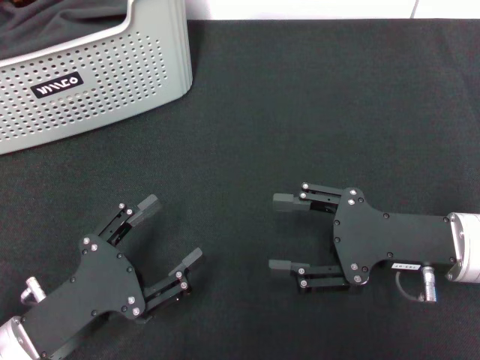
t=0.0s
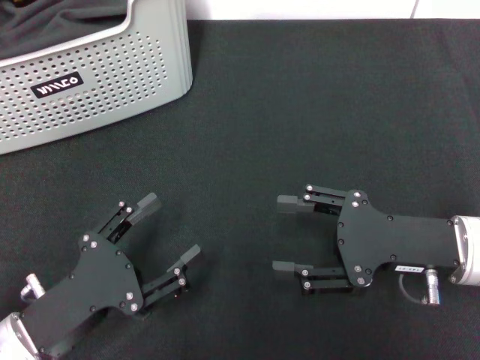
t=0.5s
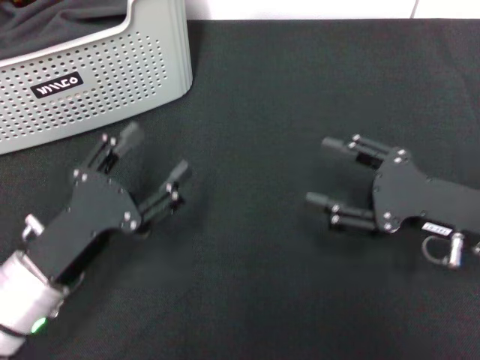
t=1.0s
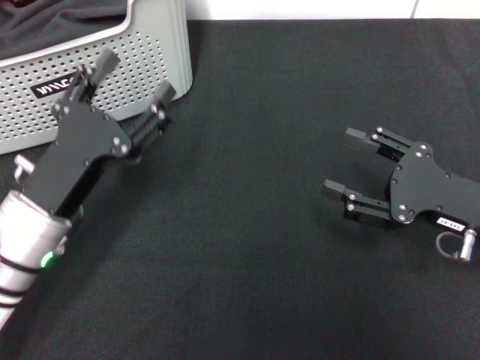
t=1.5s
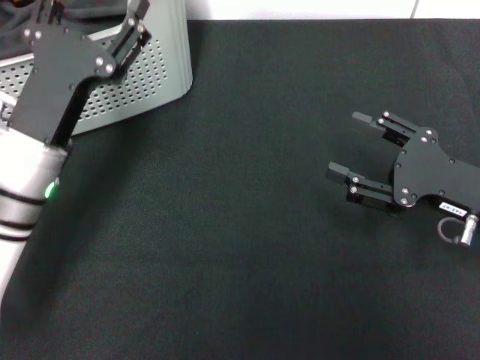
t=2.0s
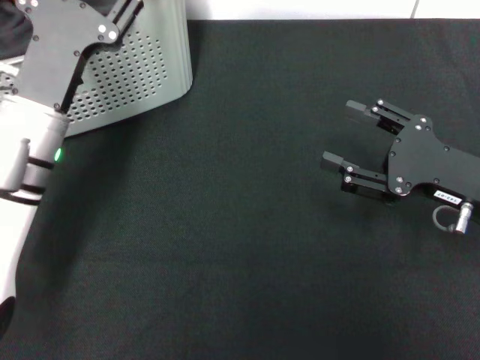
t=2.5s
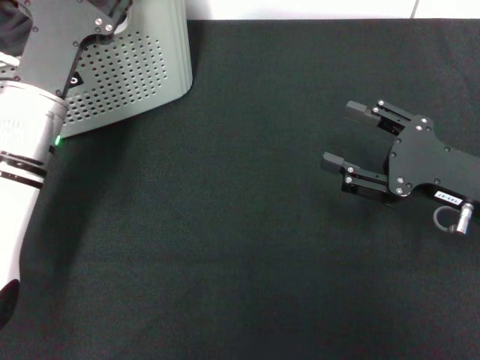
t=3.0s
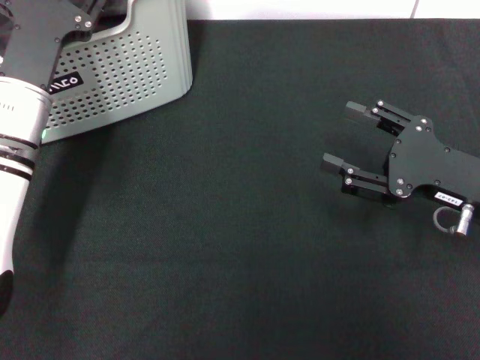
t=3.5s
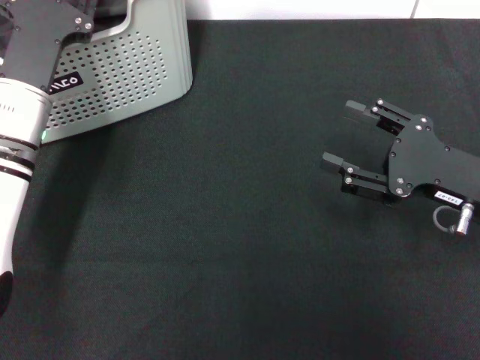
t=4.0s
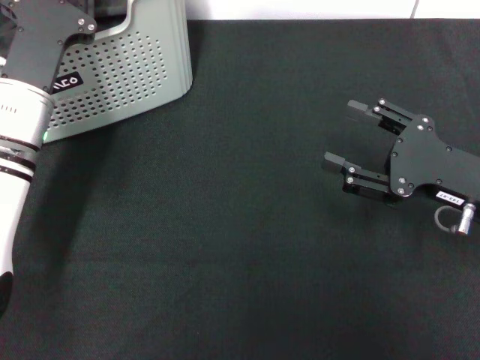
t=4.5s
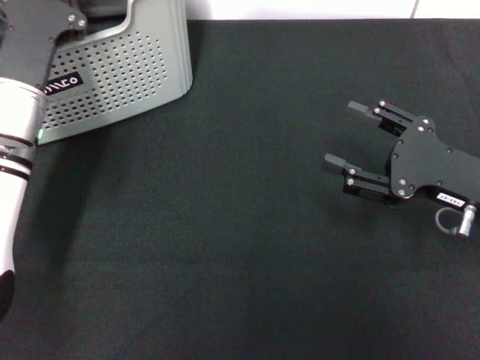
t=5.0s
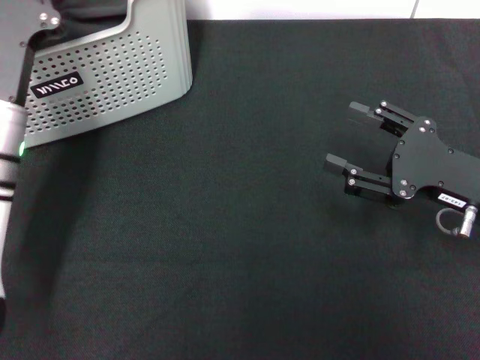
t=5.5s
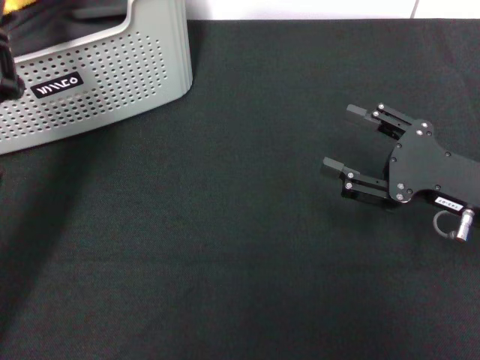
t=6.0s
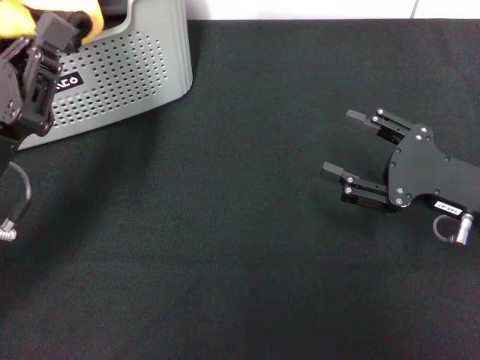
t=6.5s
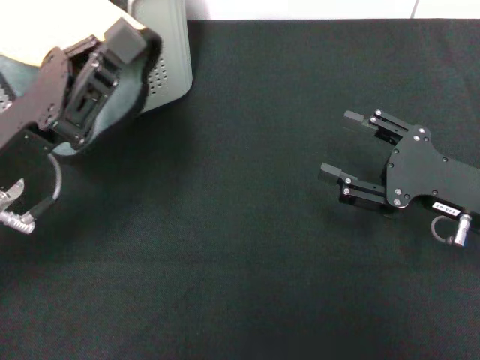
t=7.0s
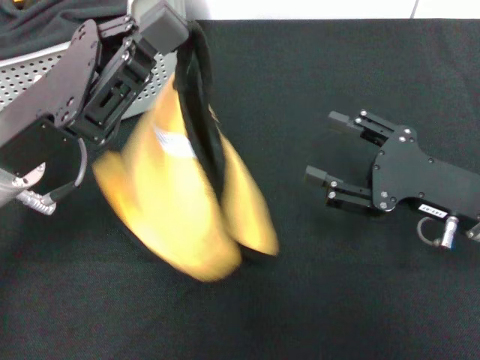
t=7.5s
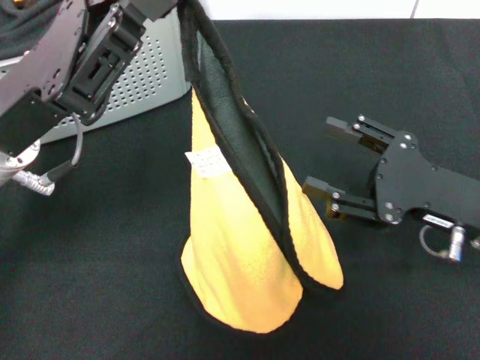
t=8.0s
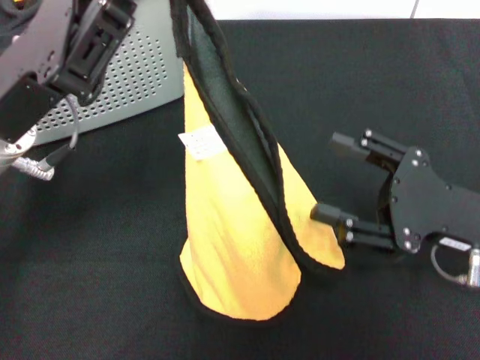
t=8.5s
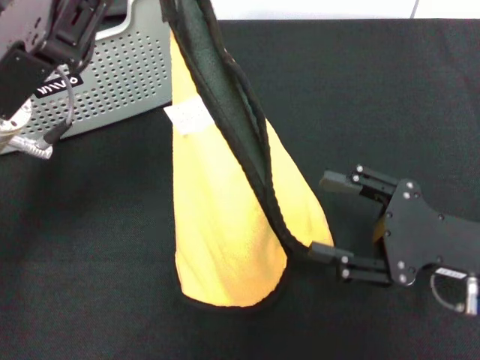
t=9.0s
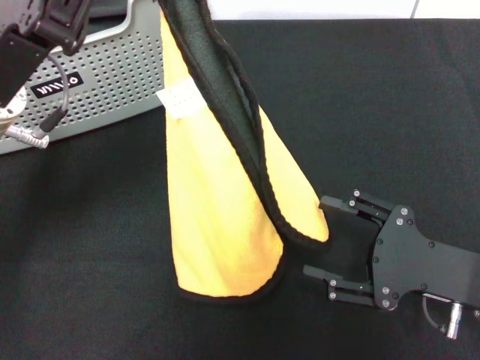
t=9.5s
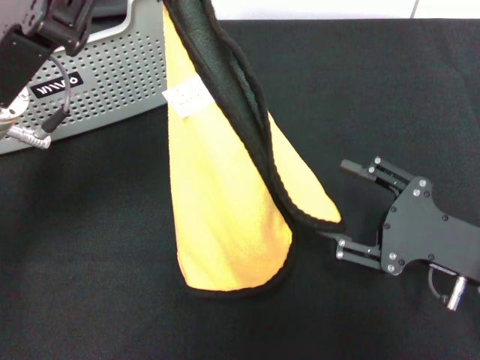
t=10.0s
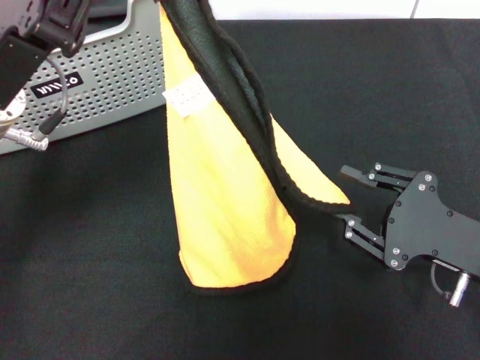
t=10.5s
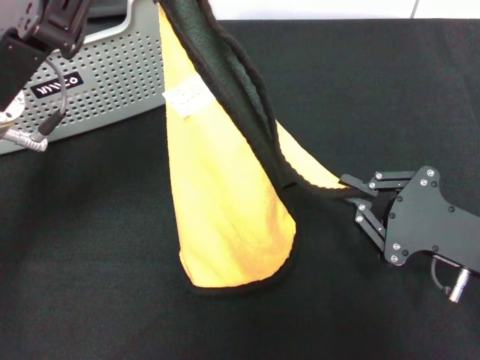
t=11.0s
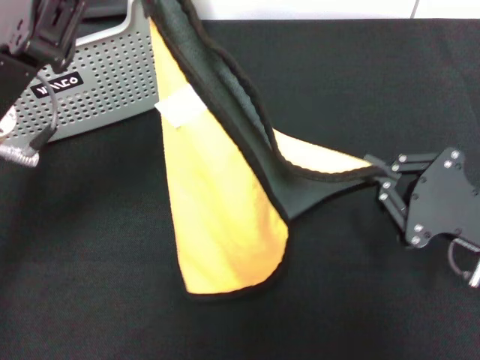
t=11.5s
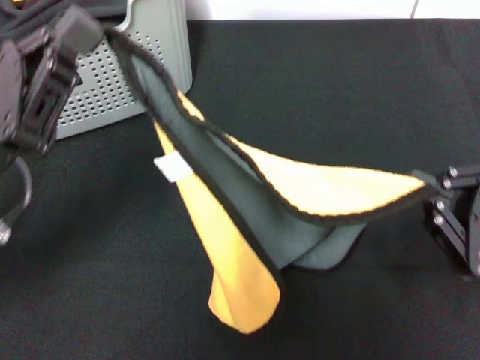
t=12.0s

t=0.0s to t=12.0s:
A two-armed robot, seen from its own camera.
Task of the whole recording: pick up the towel from the storage box and lay it flat on the black tablecloth.
Step, t=0.0s to t=5.0s: Pick up a towel with the left gripper.
Step, t=5.5s to t=11.0s: Spread the towel flat with the left gripper.
t=0.0s to t=2.0s: The left gripper is displaced forward and upward by some 15 cm.
t=2.0s to t=4.0s: The left gripper is displaced forward by approximately 5 cm.
t=4.0s to t=6.0s: The left gripper travels backward by approximately 10 cm, and closes its fingers.
t=6.0s to t=8.0s: The left gripper shifts roughly 5 cm upward.
t=10.0s to t=12.0s: The left gripper shifts some 5 cm backward. The right gripper moves some 5 cm, and closes up.

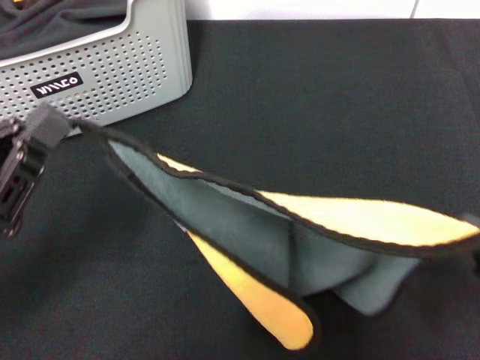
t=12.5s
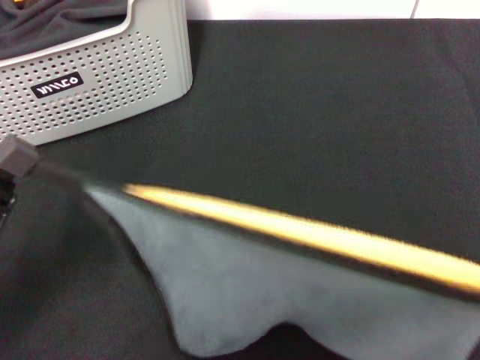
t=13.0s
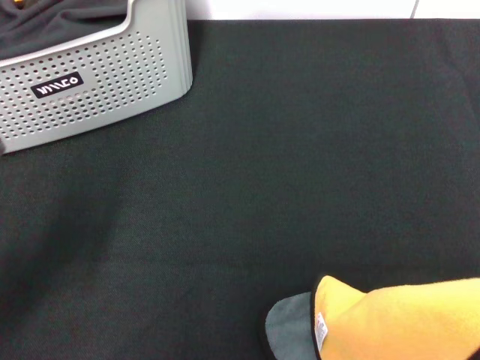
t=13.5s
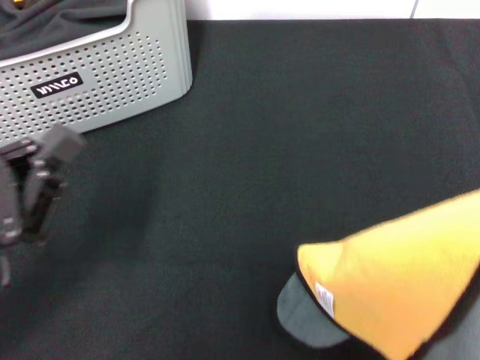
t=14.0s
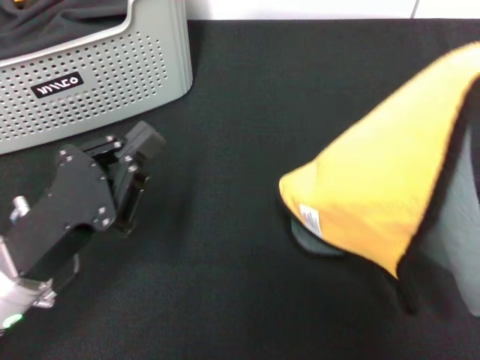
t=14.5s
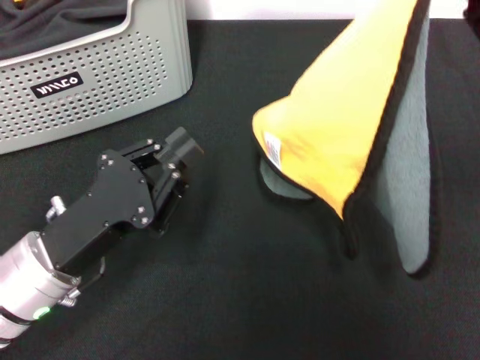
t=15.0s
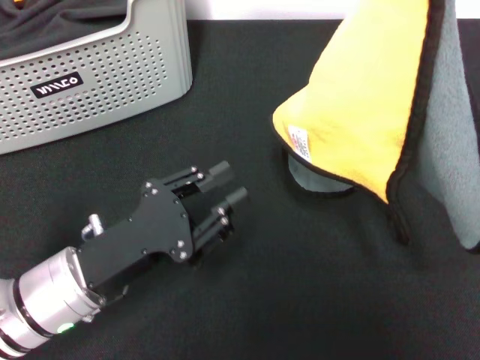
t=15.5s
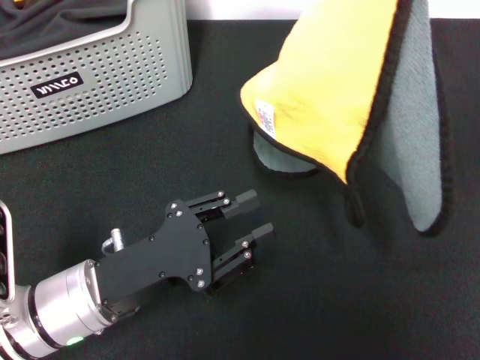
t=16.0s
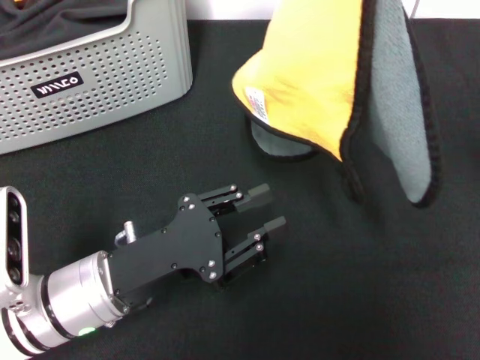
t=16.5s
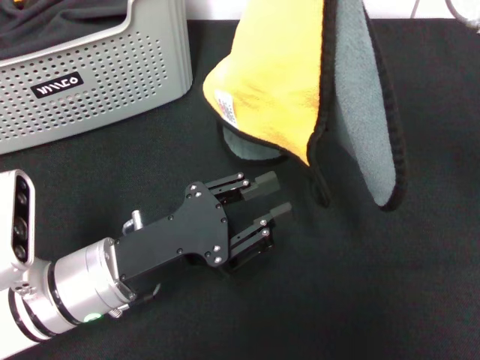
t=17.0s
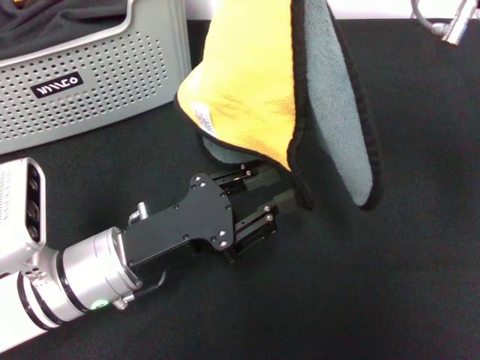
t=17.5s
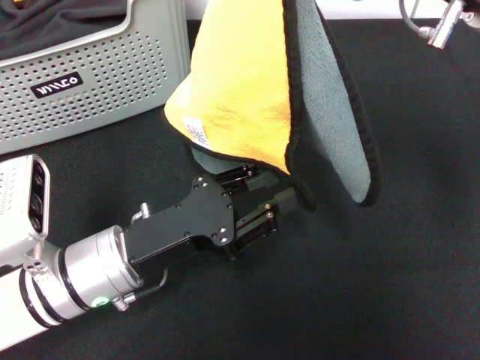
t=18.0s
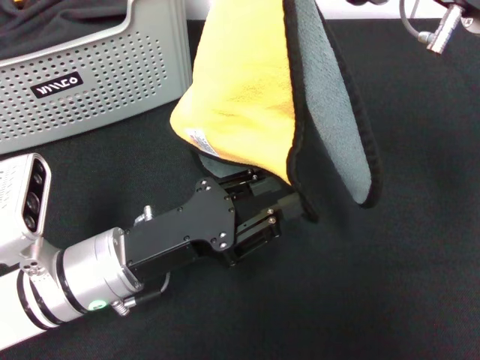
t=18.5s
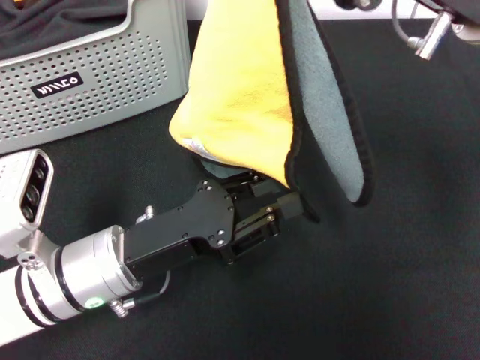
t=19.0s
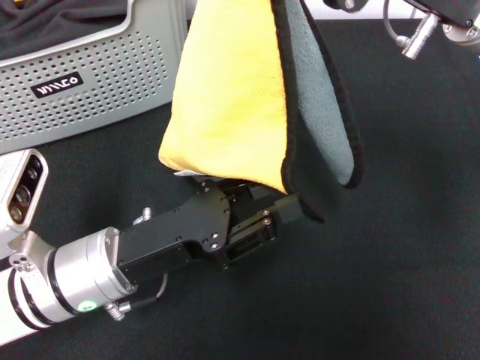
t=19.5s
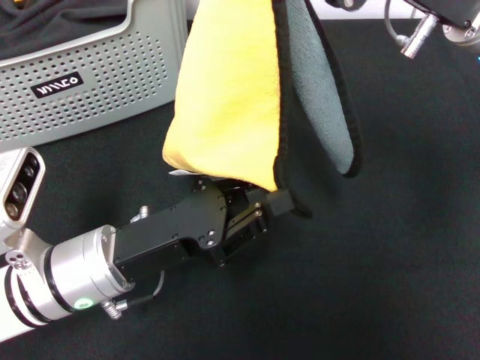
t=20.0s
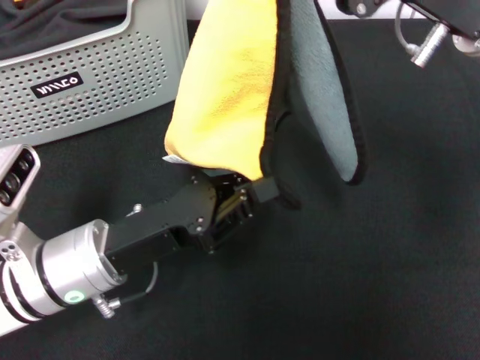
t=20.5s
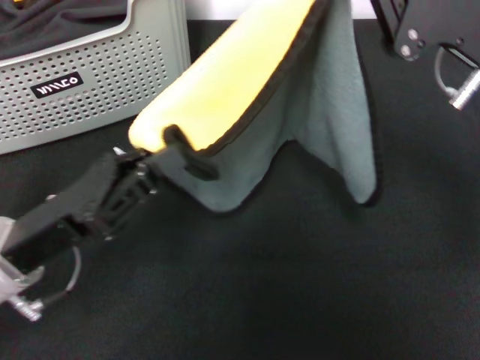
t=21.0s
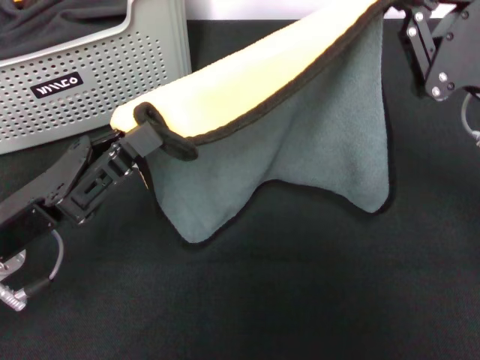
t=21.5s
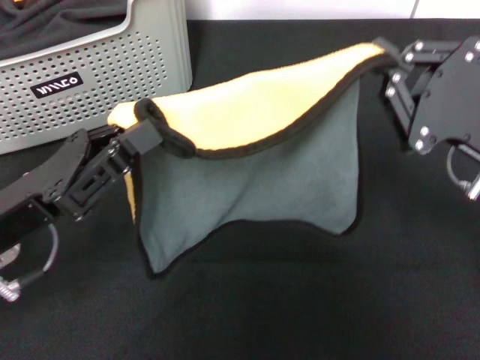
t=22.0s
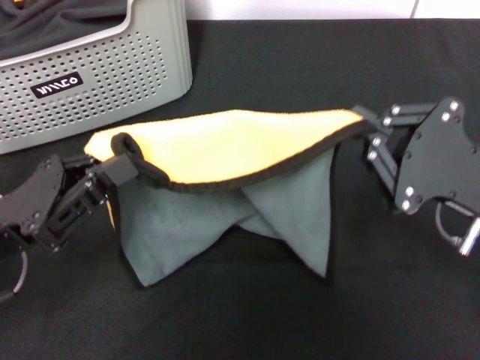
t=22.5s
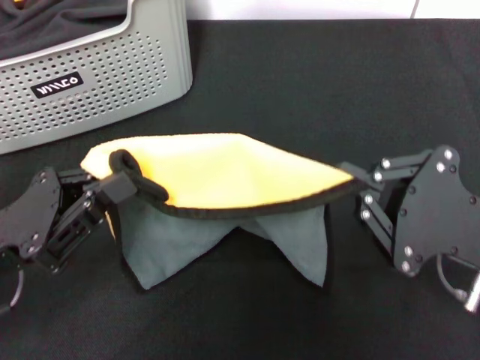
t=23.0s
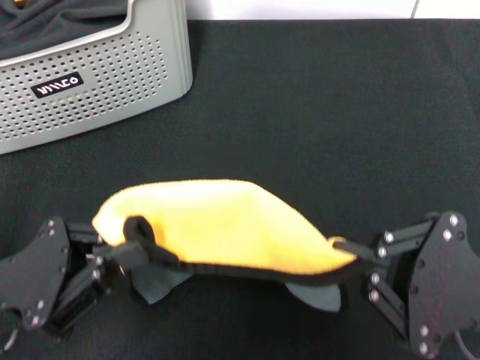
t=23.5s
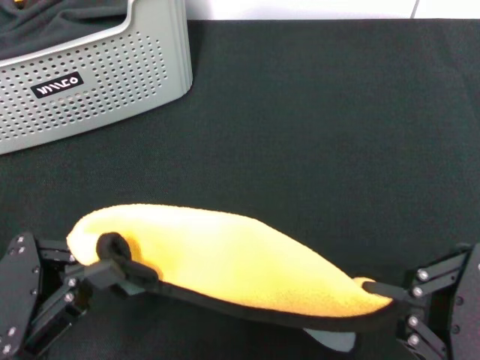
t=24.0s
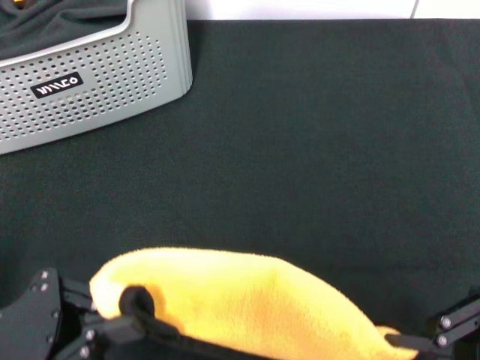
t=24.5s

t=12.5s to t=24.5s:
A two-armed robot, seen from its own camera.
Task of the whole recording: pick up the towel from the storage box and lay it flat on the black tablecloth.
t=12.5s to t=14.5s: The left gripper shifts roughly 5 cm to the right; the right gripper moves forward and upward, about 10 cm.
t=14.5s to t=16.5s: The right gripper is displaced forward, to the left and upward by some 10 cm. The left gripper moves approximately 5 cm, and opens.
t=18.5s to t=20.5s: The left gripper closes its fingers.
t=20.5s to t=22.5s: The right gripper is displaced downward, backward and to the right by some 15 cm. The left gripper moves to the left, approximately 10 cm.
t=22.5s to t=24.5s: The right gripper is displaced backward by roughly 10 cm; the left gripper moves backward, roughly 5 cm.

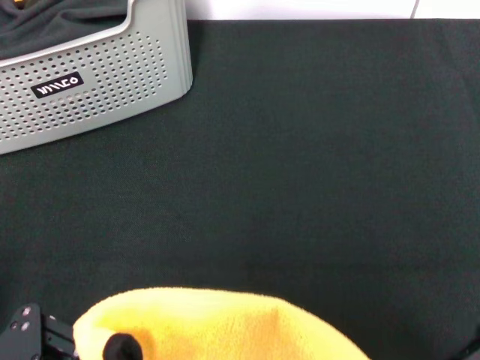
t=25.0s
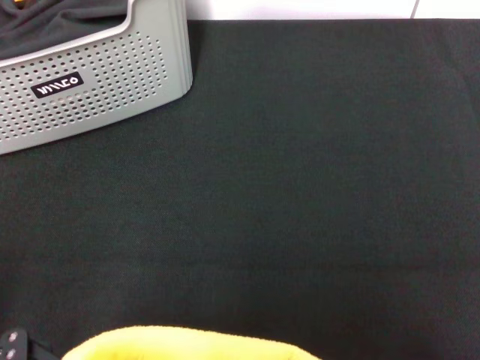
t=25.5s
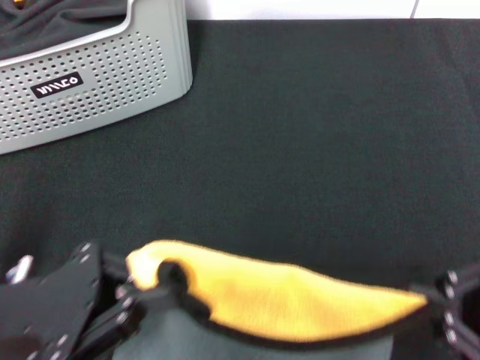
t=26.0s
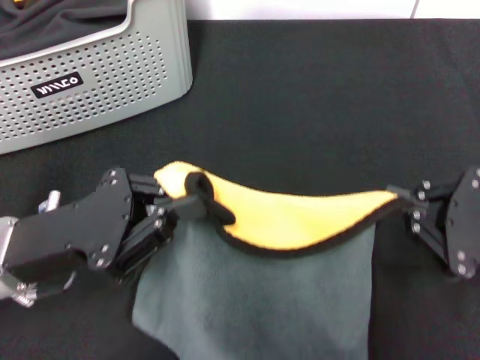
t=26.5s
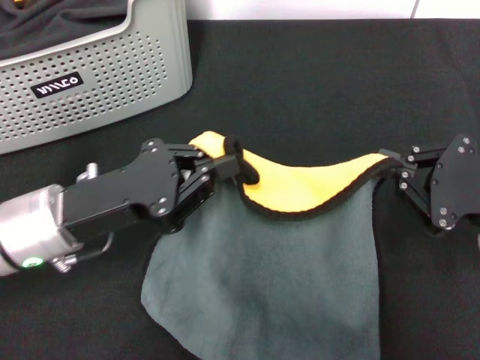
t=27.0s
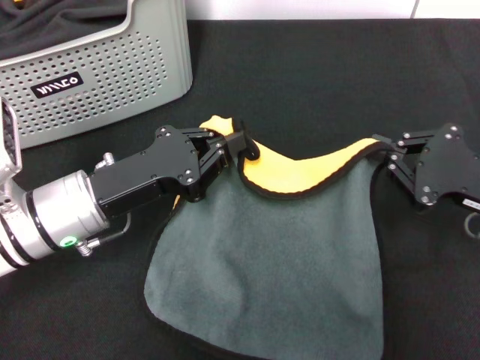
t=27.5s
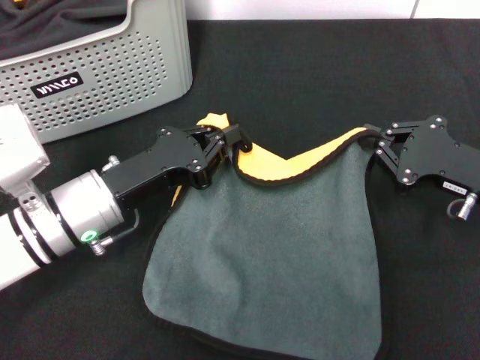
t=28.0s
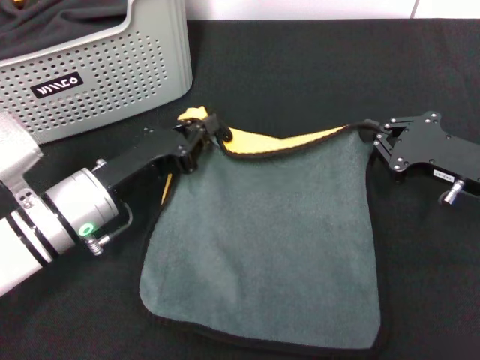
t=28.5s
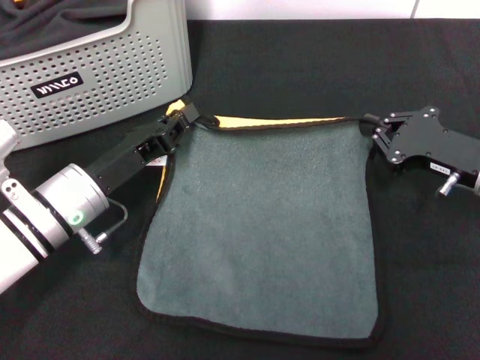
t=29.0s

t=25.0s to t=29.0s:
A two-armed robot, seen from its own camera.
Task of the whole recording: pick up the towel from the storage box and lay it flat on the black tablecloth.
t=25.0s to t=27.0s: The left gripper goes roughly 15 cm forward and to the right; the right gripper shifts roughly 10 cm forward.
t=27.0s to t=29.0s: The right gripper travels forward by roughly 5 cm, while the left gripper moves about 5 cm.
